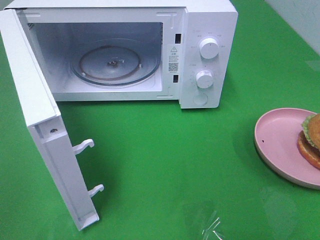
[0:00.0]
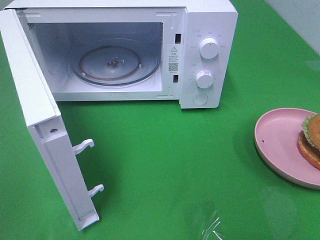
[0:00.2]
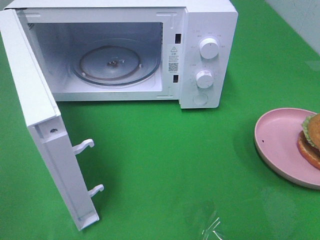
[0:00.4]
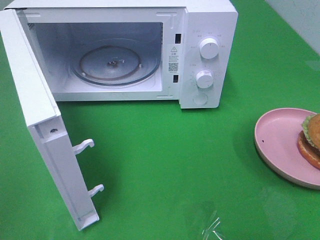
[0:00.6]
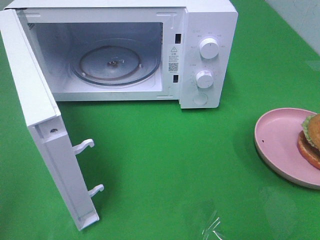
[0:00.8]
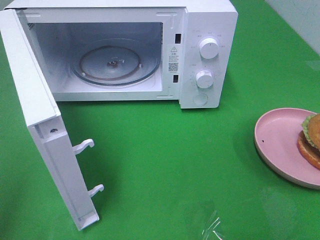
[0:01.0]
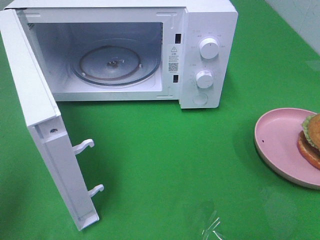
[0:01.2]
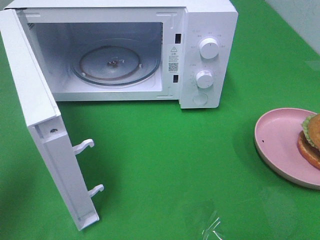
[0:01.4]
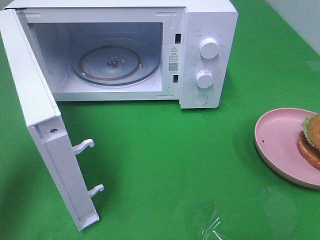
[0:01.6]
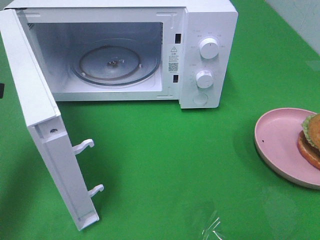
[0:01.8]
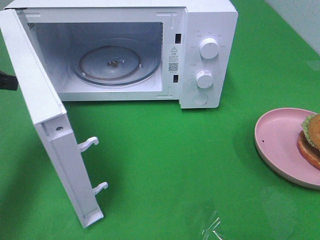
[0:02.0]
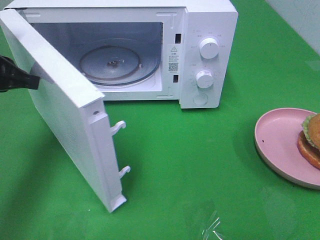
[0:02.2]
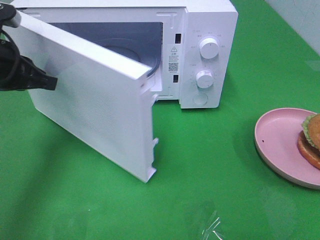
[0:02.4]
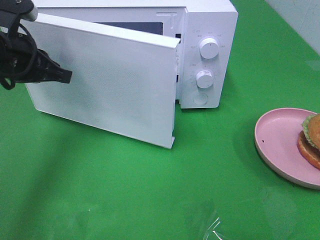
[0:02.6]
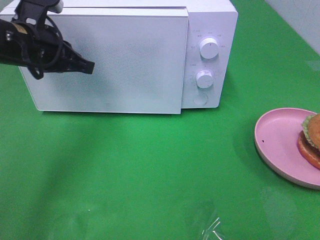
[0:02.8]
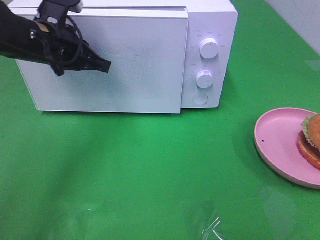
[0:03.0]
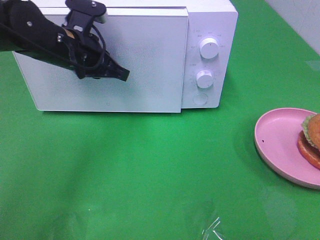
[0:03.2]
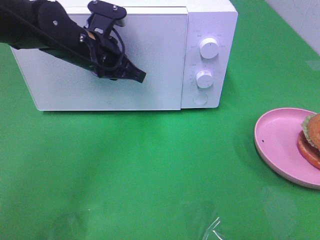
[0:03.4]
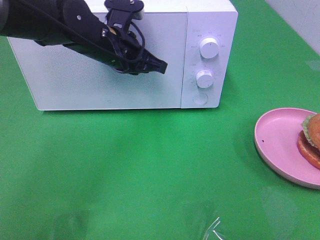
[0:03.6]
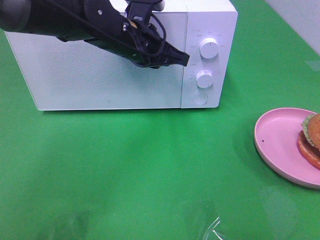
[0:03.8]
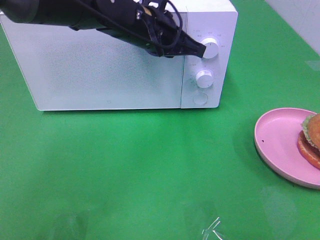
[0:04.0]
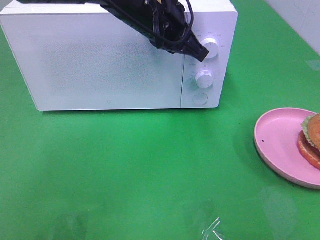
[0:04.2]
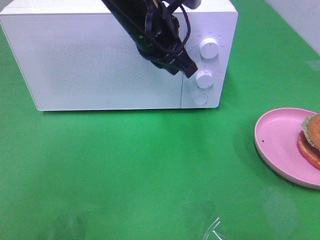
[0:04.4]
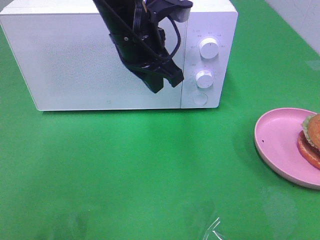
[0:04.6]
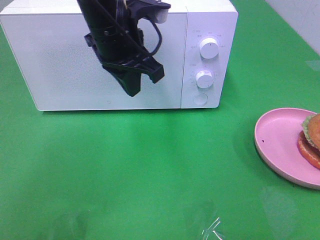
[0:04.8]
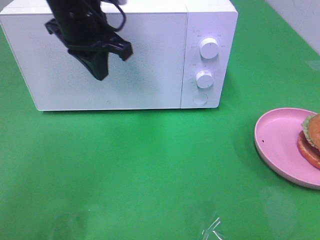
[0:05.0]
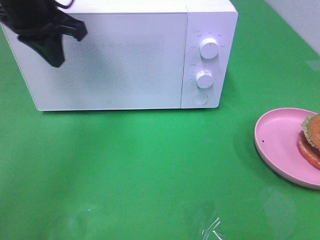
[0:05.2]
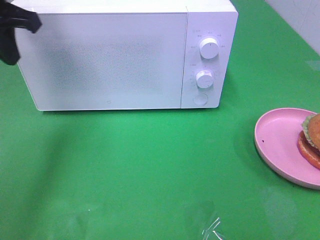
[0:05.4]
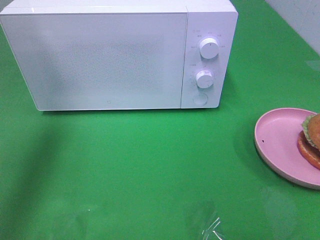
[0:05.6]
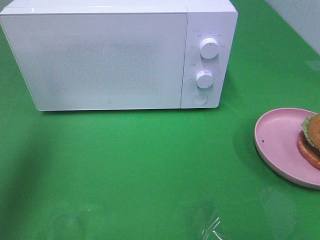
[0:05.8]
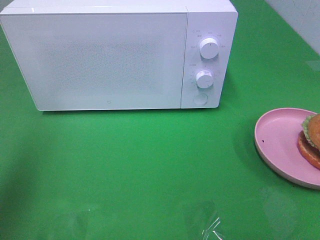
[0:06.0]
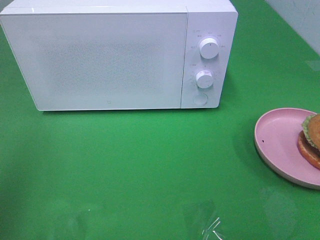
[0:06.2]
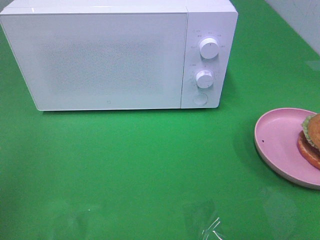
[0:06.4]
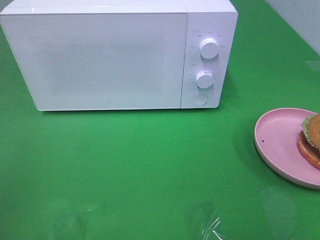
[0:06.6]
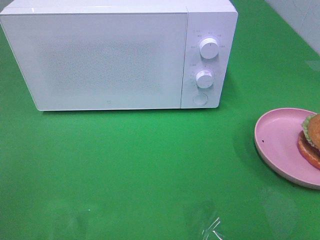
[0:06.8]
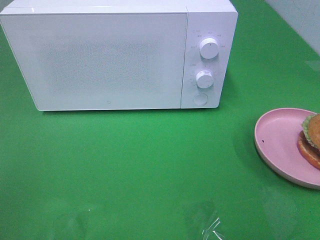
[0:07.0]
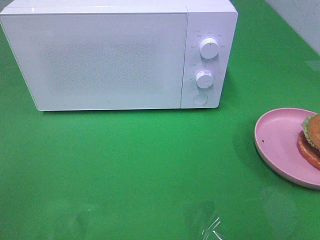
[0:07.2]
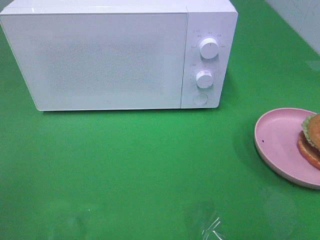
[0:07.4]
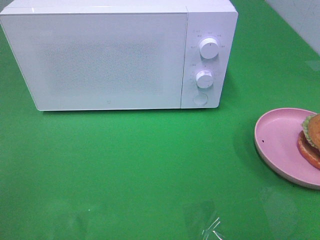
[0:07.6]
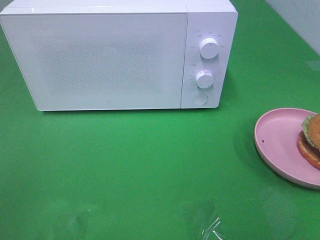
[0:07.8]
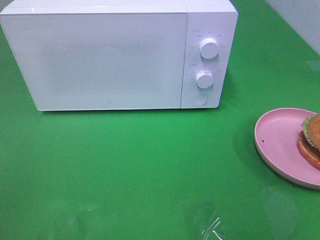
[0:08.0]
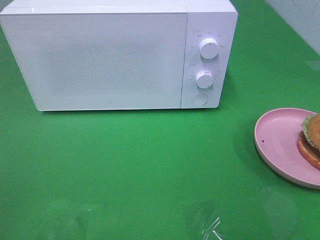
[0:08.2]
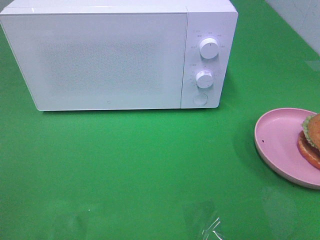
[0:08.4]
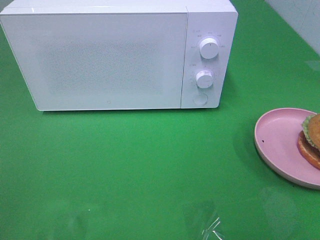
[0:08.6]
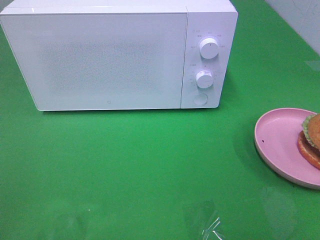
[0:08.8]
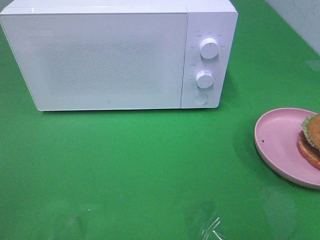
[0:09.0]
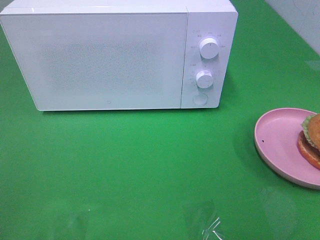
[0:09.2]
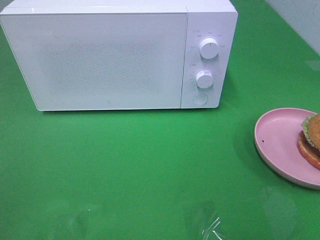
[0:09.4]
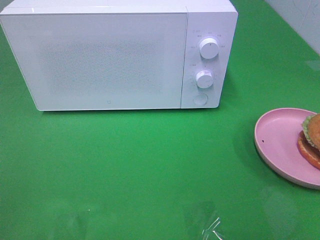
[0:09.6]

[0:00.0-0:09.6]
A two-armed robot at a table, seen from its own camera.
Task of the whole recording: Heat the burger.
Step, 0:00.0 to 0:04.6: Left hand: close the microwave door.
0:00.0 to 0:01.6: The left gripper travels forward by some 20 cm.
0:01.6 to 0:03.2: The left gripper goes some 20 cm to the right and forward.
0:03.2 to 0:04.8: The left gripper goes some 10 cm to the right and upward.
0:04.8 to 0:06.4: The left gripper travels to the left and backward by some 35 cm.

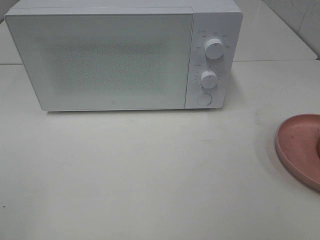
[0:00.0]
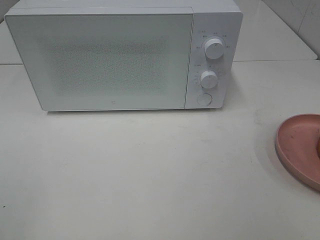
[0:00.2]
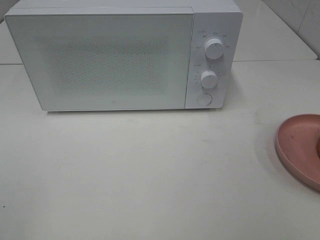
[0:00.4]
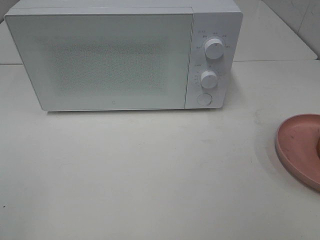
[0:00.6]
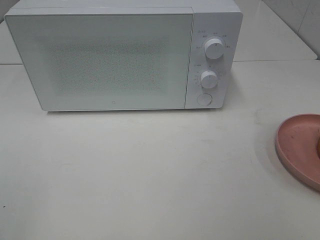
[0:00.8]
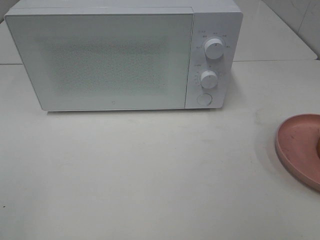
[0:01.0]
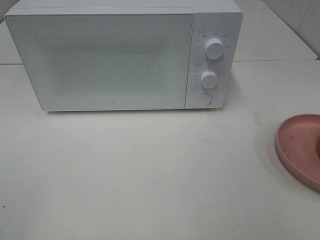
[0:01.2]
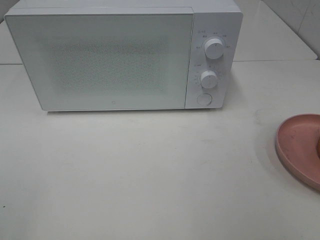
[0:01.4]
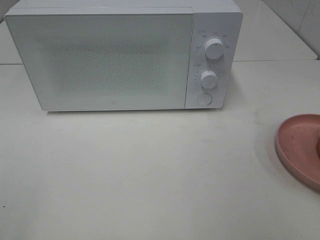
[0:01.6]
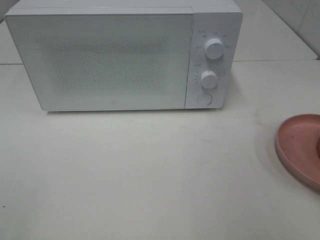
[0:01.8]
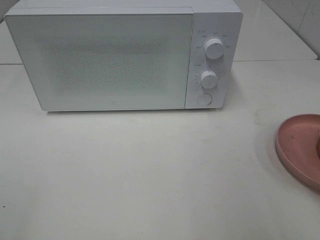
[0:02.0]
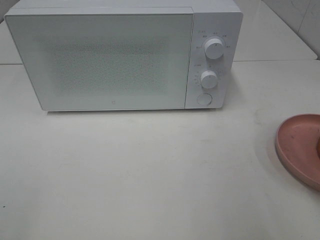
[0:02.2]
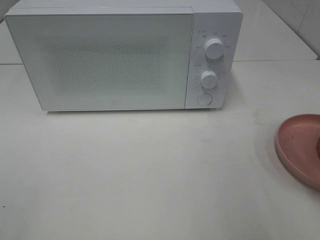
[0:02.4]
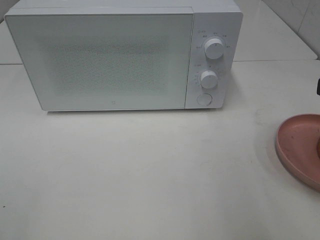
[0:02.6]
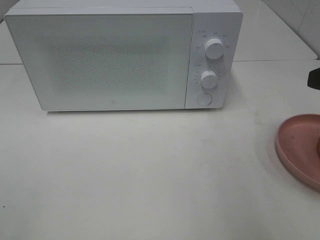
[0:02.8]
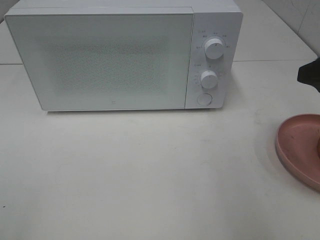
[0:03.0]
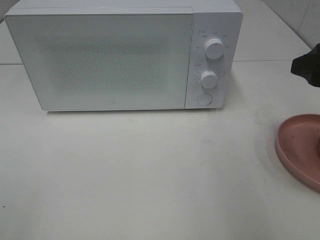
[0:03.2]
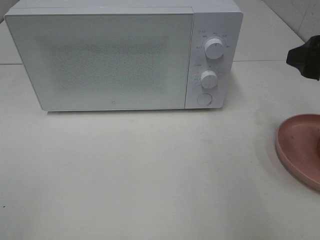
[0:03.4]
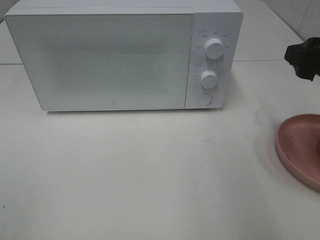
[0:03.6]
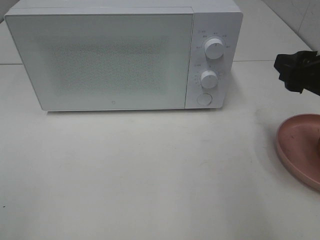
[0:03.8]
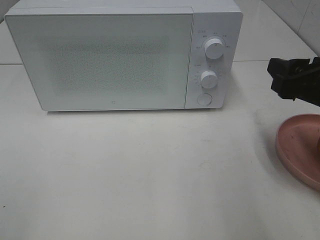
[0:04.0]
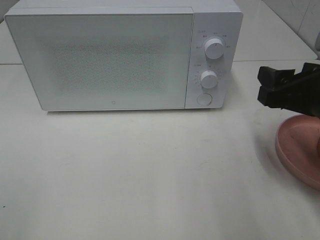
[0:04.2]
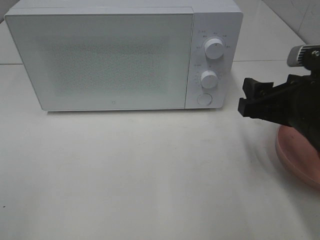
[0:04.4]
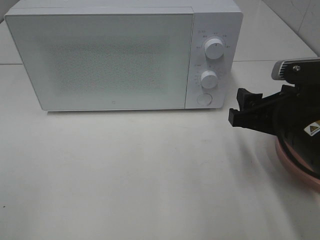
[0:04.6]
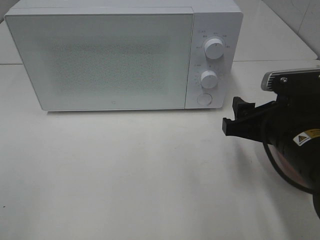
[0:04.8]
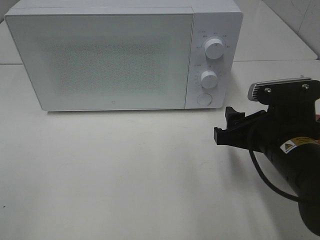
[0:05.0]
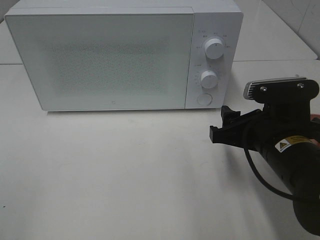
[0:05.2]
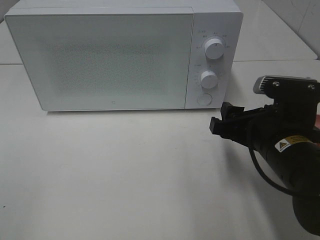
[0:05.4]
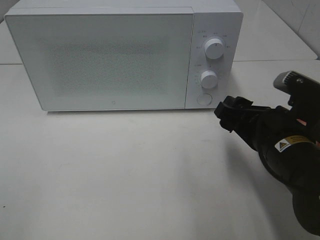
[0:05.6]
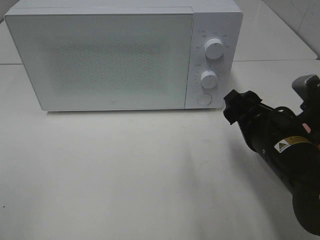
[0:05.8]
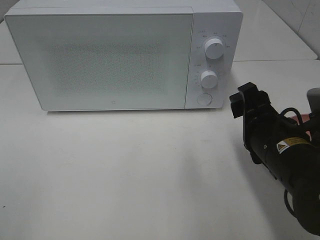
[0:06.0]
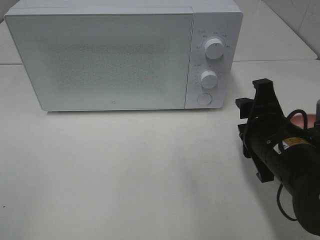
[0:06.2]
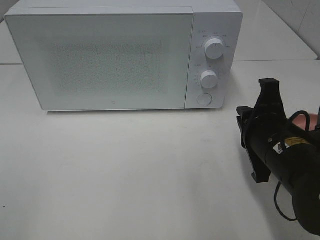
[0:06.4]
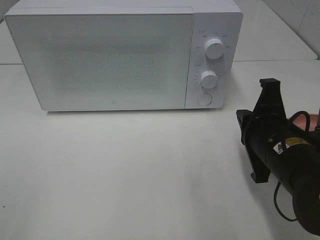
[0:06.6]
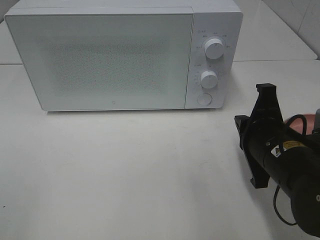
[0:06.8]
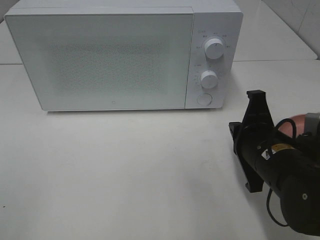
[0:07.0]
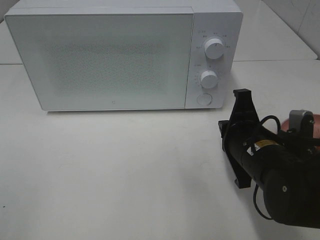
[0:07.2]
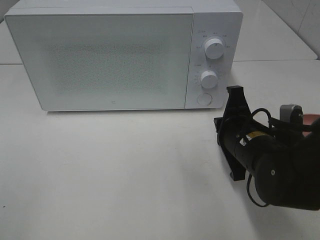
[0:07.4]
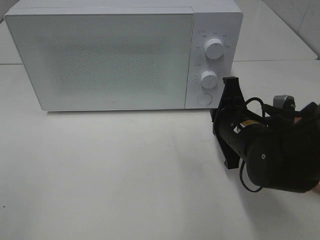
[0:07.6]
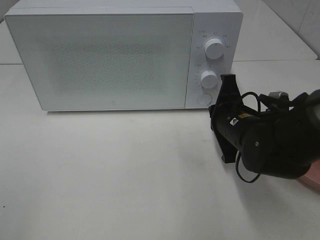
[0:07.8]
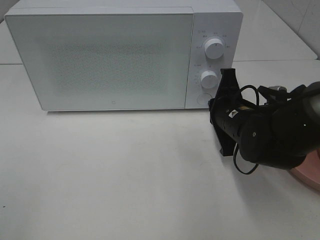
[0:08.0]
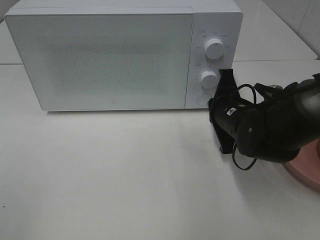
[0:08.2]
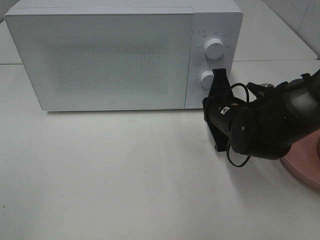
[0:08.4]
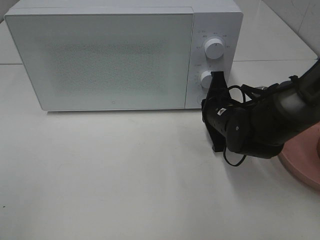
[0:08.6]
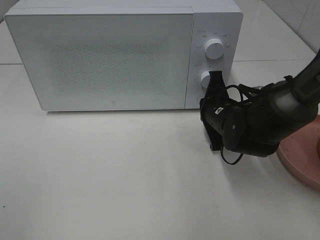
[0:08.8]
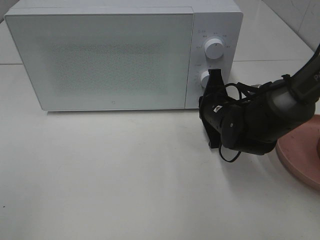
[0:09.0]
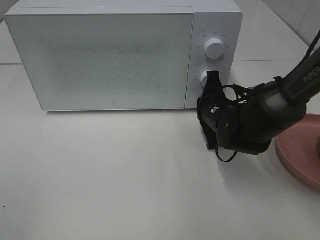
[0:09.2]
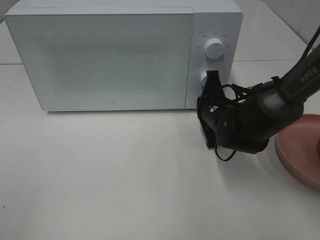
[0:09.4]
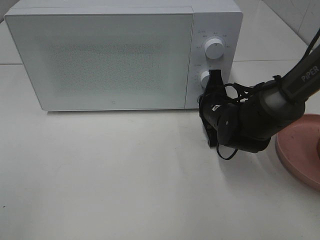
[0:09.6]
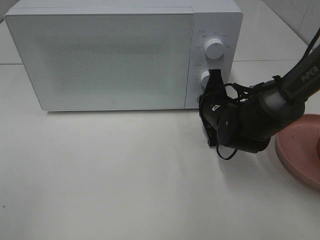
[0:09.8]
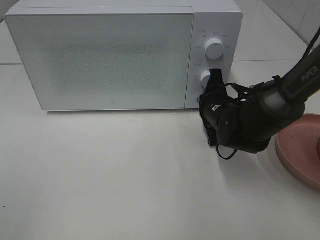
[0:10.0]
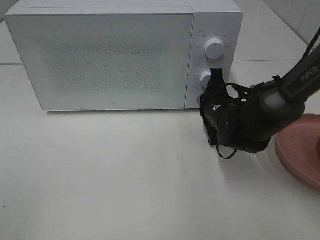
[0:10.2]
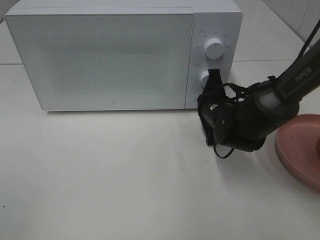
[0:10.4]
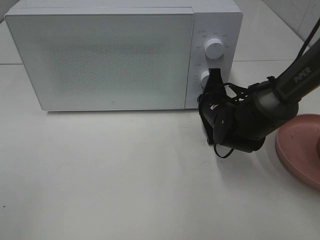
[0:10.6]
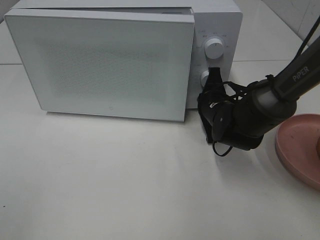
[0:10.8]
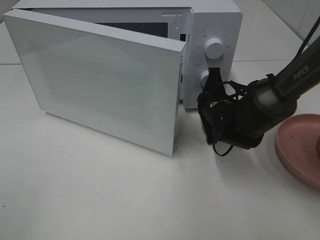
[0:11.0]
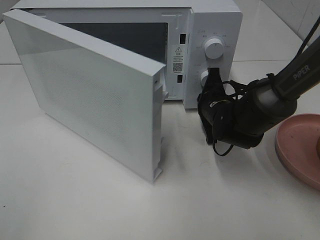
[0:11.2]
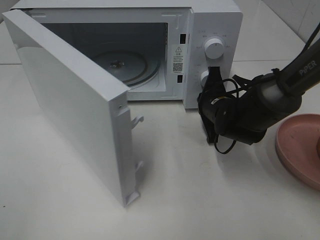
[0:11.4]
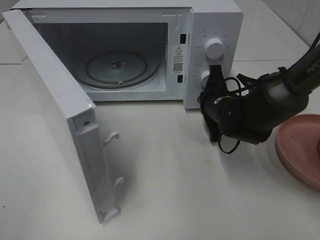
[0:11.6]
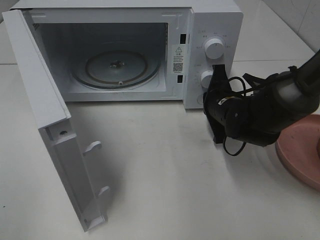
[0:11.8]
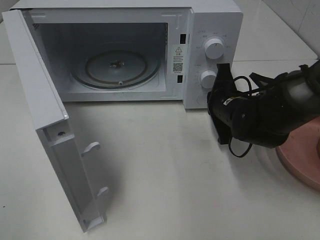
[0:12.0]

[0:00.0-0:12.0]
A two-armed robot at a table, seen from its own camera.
Task of the whole recording: Heat the burger.
0:01.6 to 0:03.0: The right gripper is displaced forward by about 15 cm.
0:03.0 to 0:04.4: The right gripper travels downward and to the left by approximately 10 cm.
0:04.4 to 0:06.0: The right gripper moves roughly 5 cm.
0:06.0 to 0:07.6: The right gripper goes some 5 cm forward, and closes.
0:07.6 to 0:09.0: The right gripper moves forward, roughly 5 cm.
0:09.0 to 0:10.4: There are only small adjustments of the grippers.

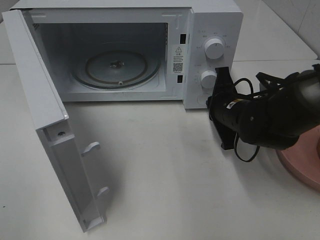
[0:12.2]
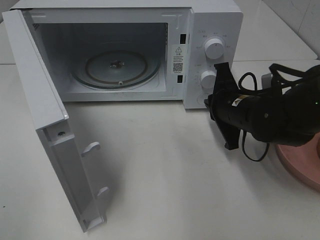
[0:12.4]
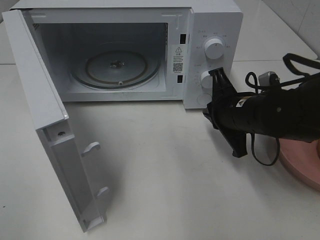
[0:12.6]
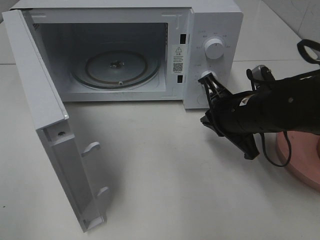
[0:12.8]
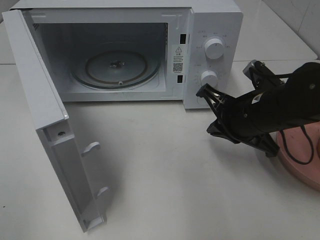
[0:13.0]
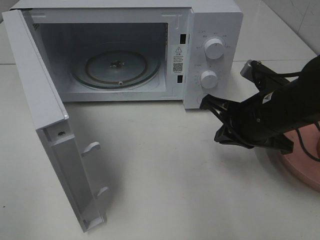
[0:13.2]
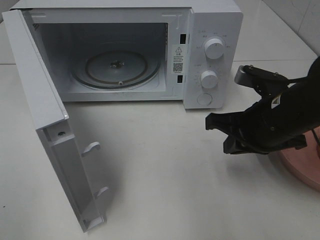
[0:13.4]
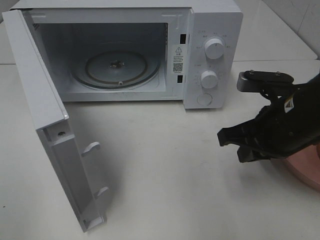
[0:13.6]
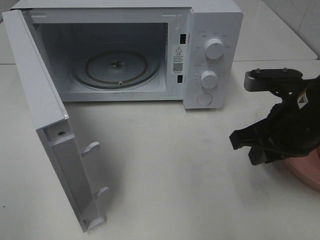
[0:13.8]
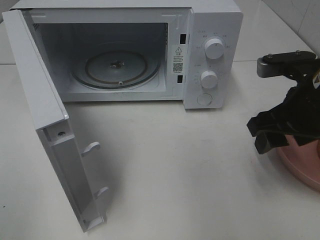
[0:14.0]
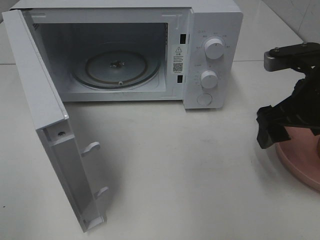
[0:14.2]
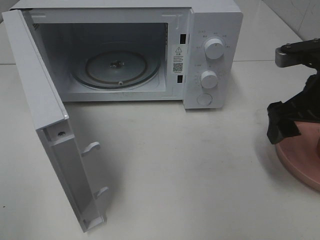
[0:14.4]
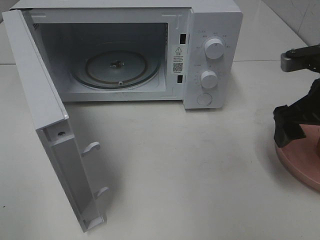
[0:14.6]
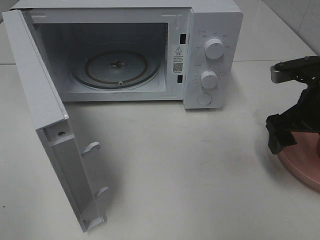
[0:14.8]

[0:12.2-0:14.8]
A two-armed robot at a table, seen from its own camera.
Task of the whole recording: Heat the burger.
0:12.2 to 0:13.4: The right gripper goes approximately 10 cm backward and upward.
0:13.4 to 0:14.8: The right gripper is displaced to the right by about 10 cm, and opens its fingers.
